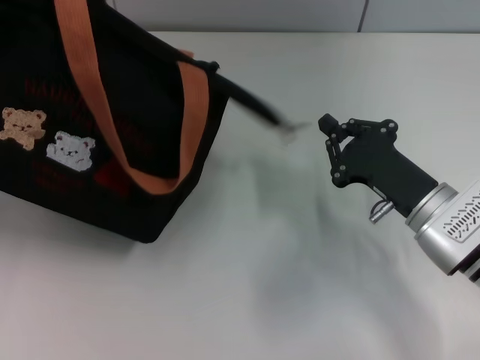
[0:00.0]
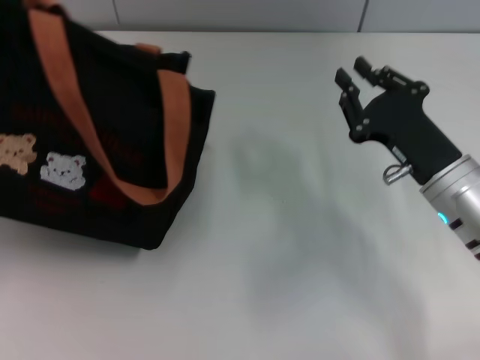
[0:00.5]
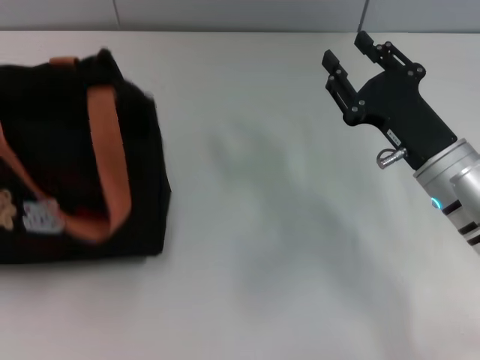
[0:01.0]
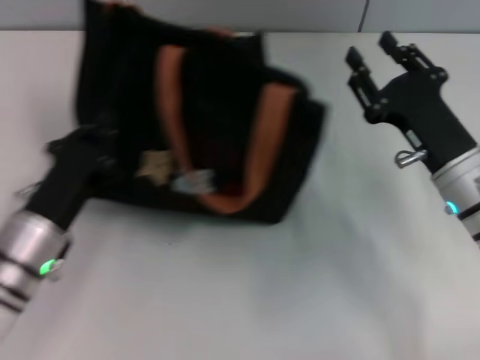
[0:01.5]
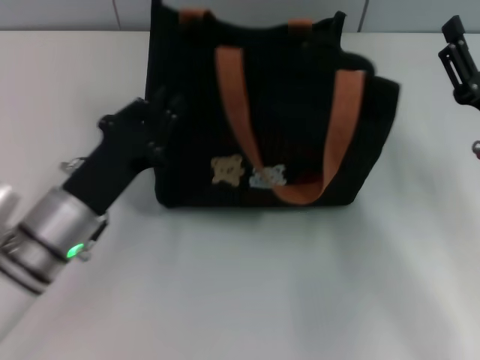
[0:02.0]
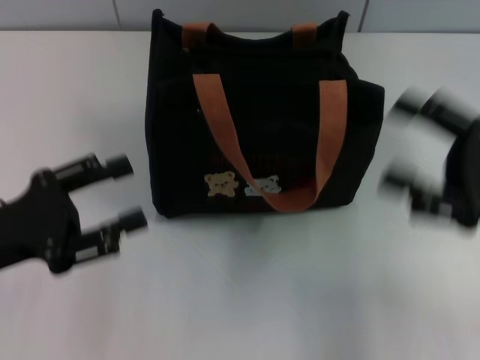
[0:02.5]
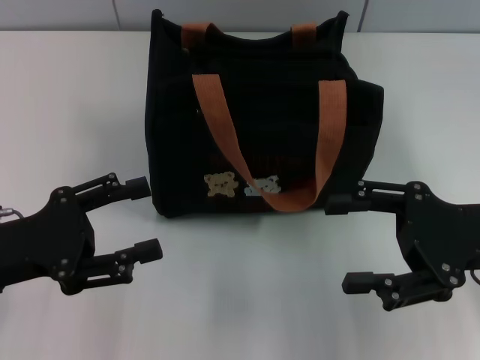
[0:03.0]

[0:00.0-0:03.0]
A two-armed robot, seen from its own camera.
Step, 0:00.0 to 0:01.0: Grab the bag with your left hand.
0:00.0 to 0:01.5: The left gripper travels to the right and downward by some 15 cm, while the right gripper opens its fingers.
0:01.5 to 0:03.0: The right gripper shifts roughly 5 cm upward and to the right, and opens up. The left gripper moves upward and to the left, some 10 cm, and opens up.

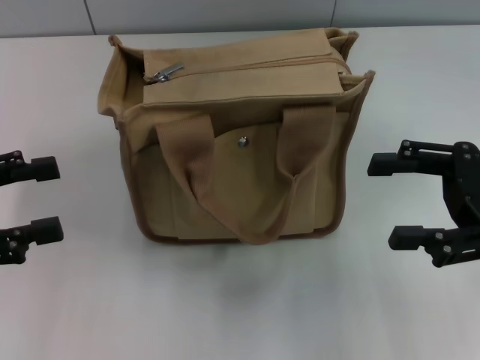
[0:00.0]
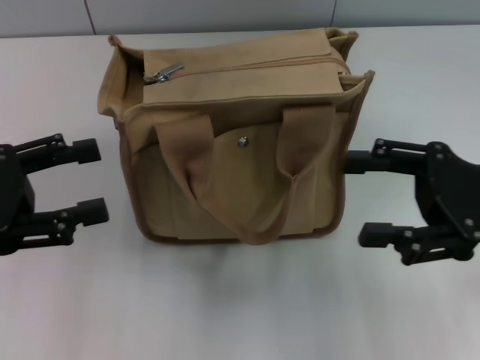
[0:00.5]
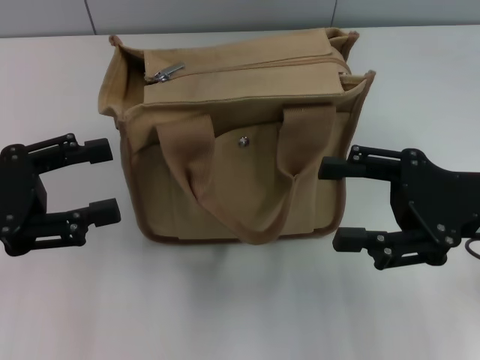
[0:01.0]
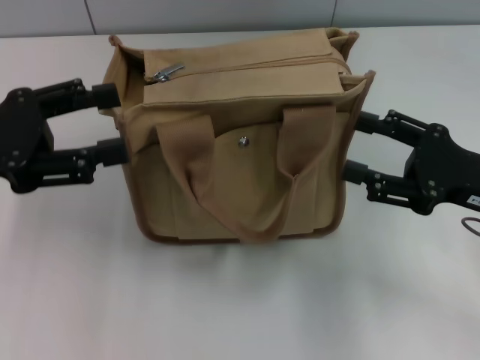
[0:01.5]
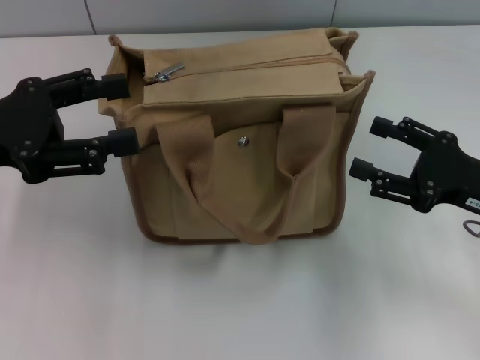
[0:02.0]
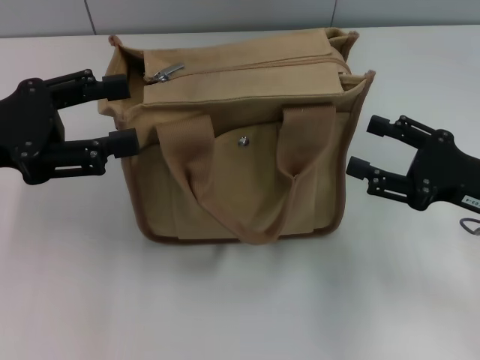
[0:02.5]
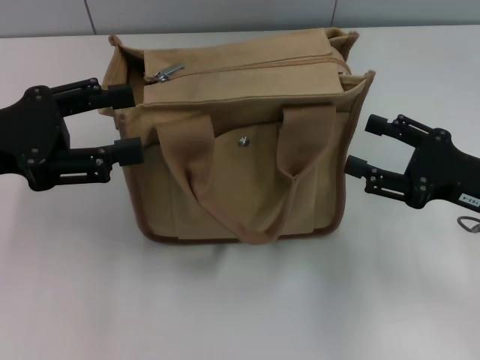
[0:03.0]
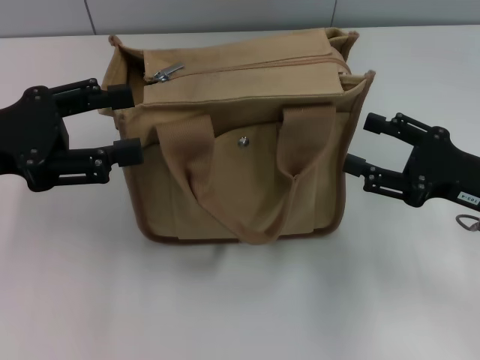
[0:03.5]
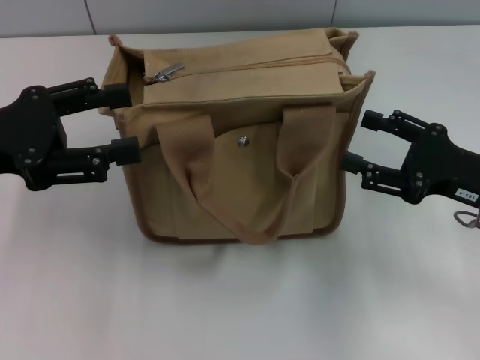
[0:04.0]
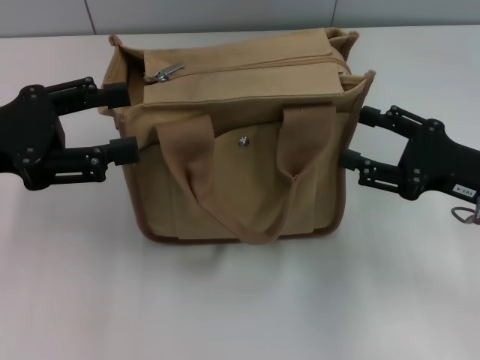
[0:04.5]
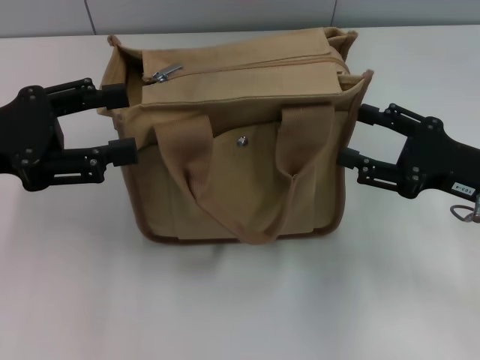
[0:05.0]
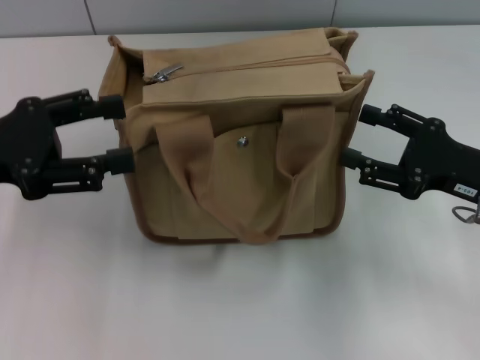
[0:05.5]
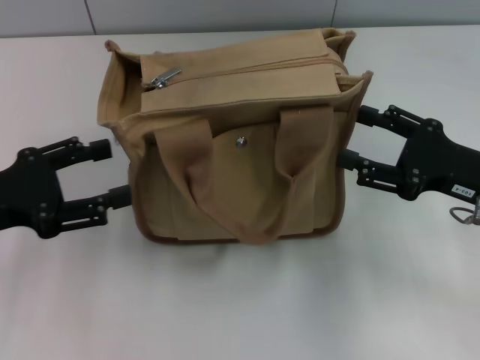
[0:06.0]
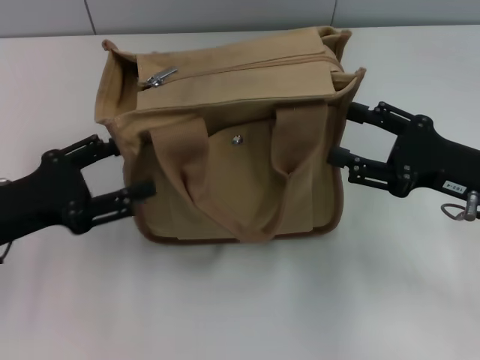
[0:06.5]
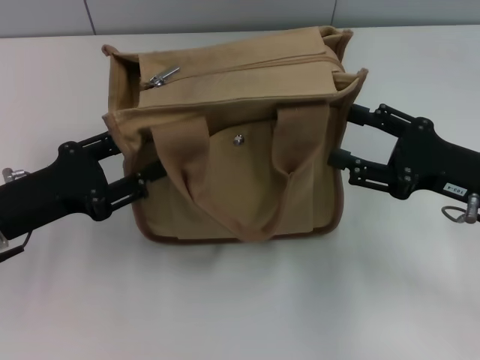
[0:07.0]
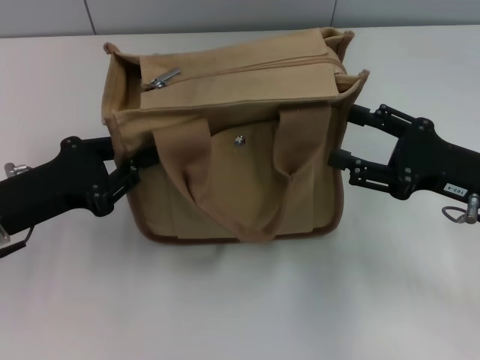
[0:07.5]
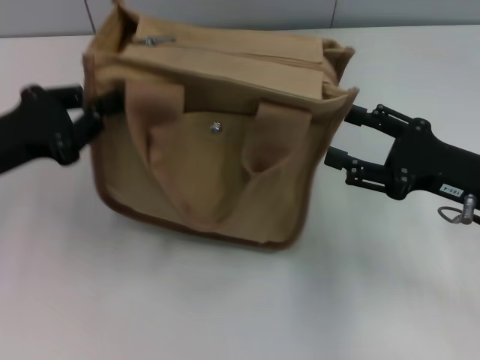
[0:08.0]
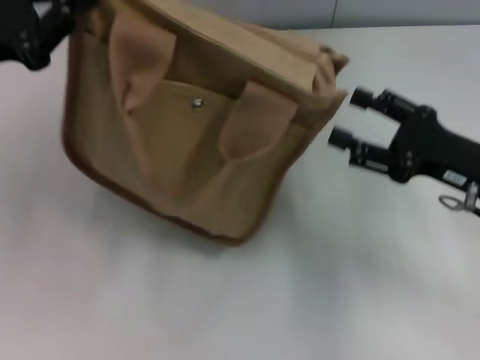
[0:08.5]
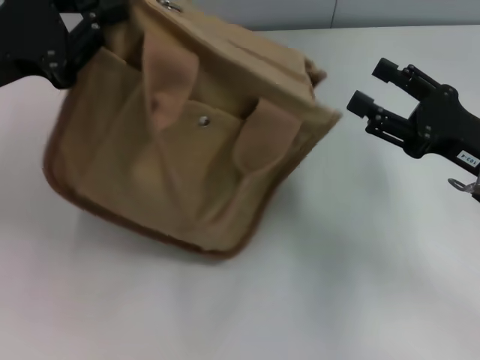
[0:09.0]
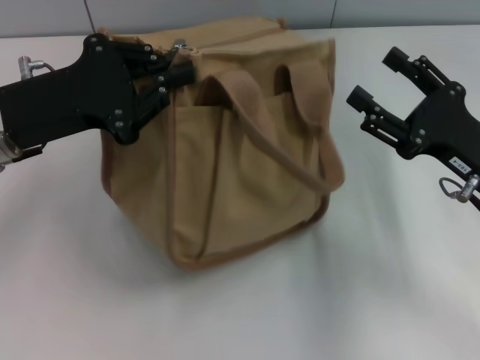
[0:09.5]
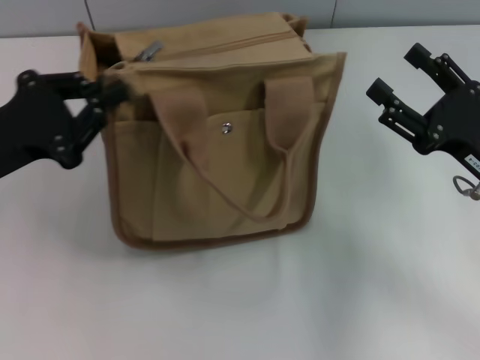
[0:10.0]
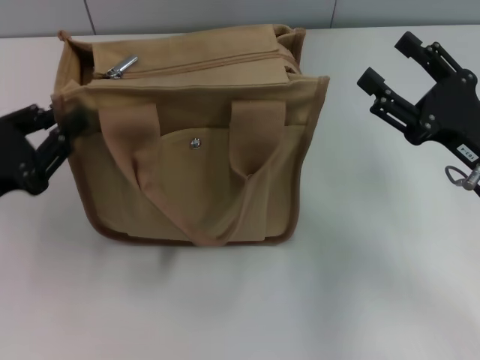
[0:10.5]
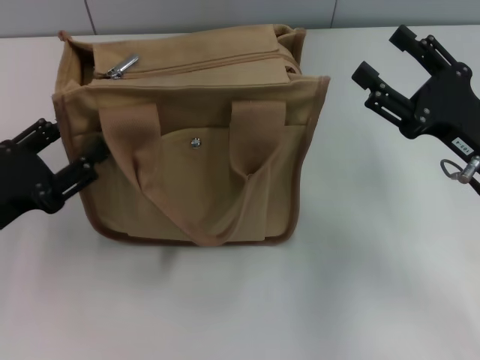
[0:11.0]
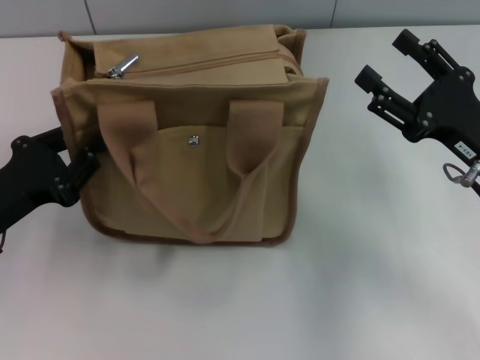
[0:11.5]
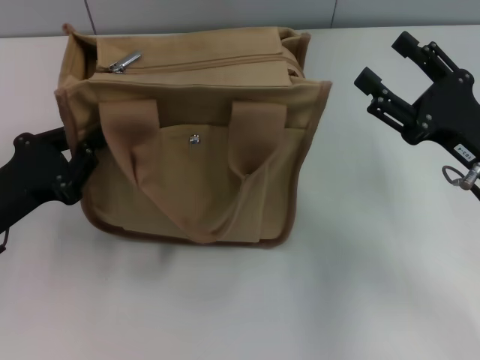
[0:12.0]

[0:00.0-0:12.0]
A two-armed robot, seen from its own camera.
0:00.0 to 0:02.0: The right gripper is displaced downward by roughly 5 cm; the left gripper shifts approximately 10 cm to the right and forward.
0:02.0 to 0:04.0: Neither gripper changes place.
0:04.0 to 0:06.0: The left gripper moves downward, approximately 5 cm.
0:06.0 to 0:08.0: The left gripper closes.
0:10.0 to 0:12.0: The left gripper is displaced downward by approximately 5 cm, and opens and closes again.

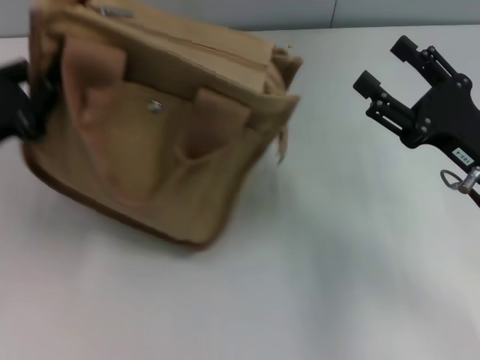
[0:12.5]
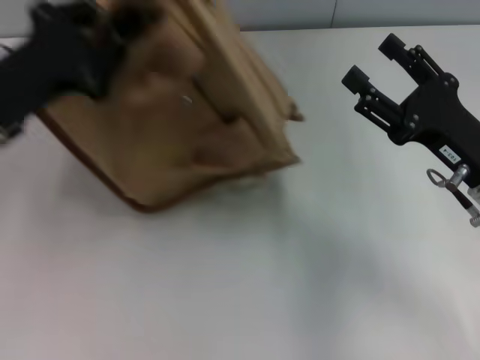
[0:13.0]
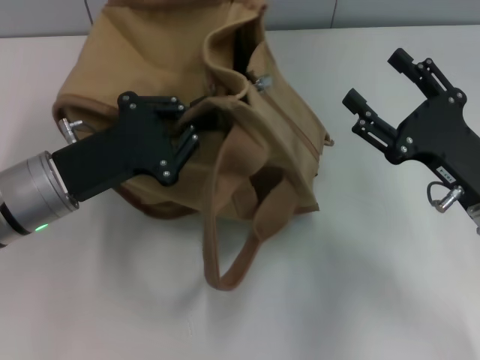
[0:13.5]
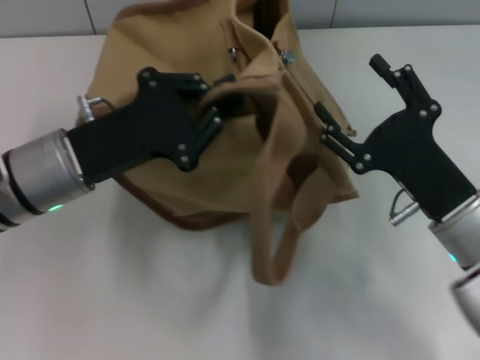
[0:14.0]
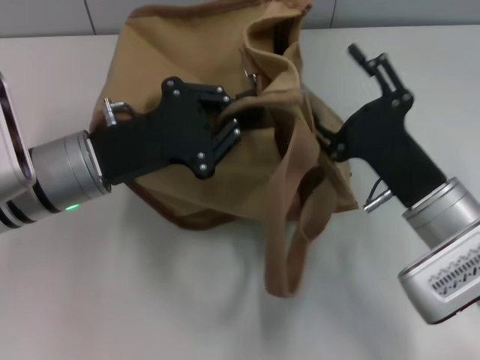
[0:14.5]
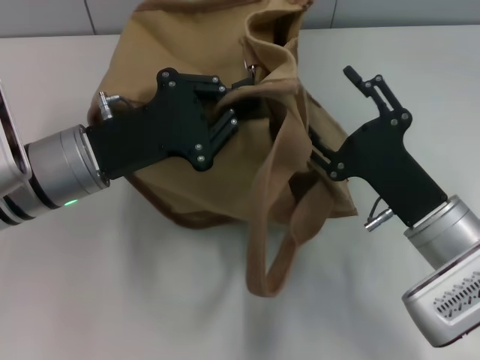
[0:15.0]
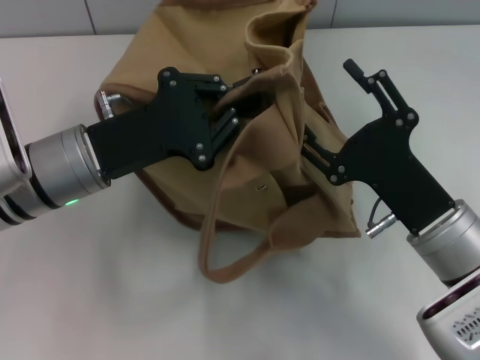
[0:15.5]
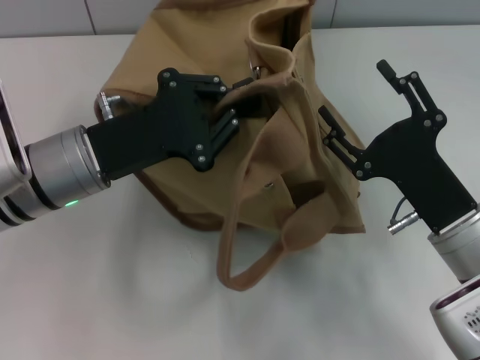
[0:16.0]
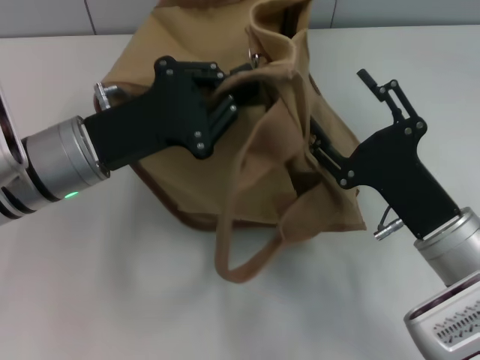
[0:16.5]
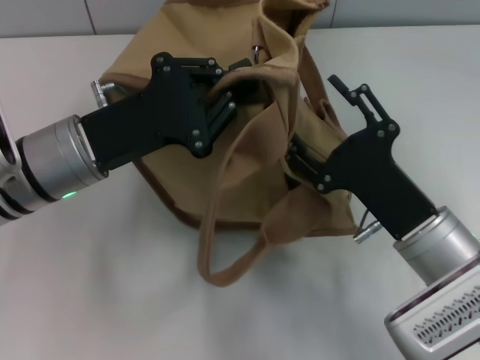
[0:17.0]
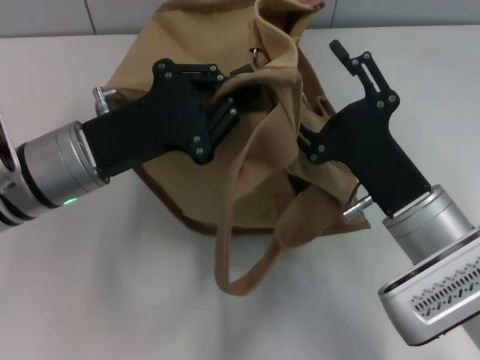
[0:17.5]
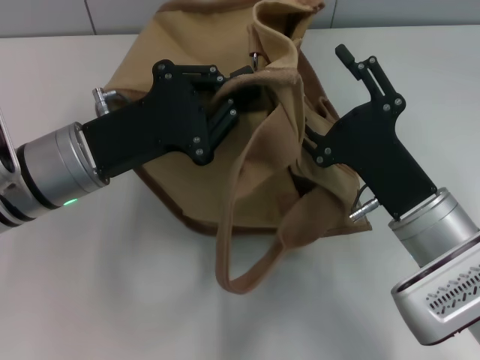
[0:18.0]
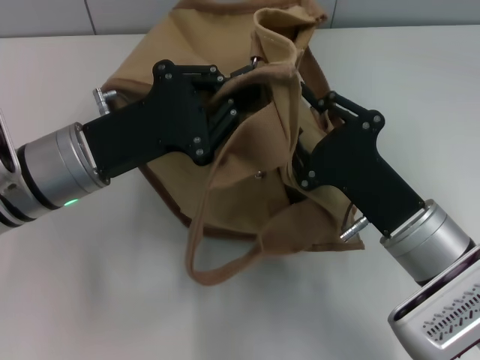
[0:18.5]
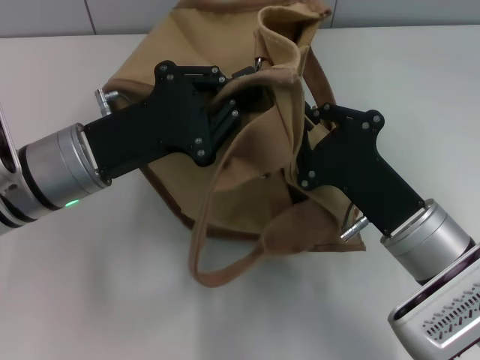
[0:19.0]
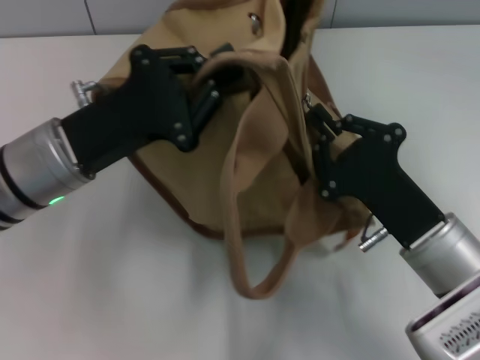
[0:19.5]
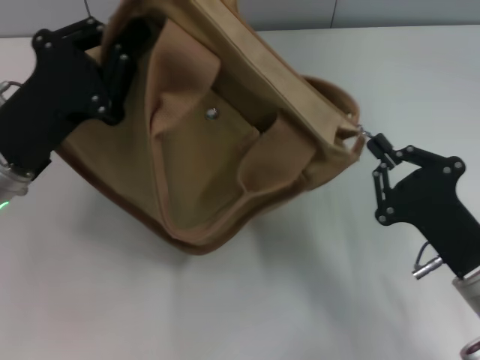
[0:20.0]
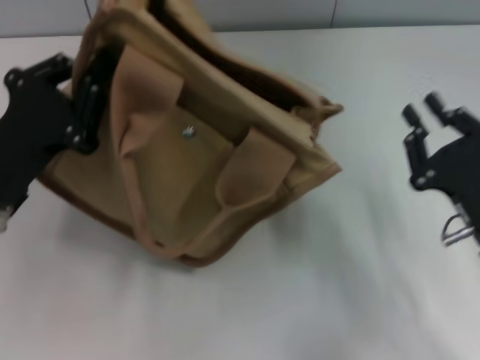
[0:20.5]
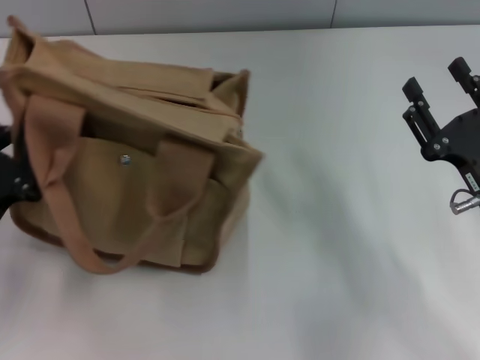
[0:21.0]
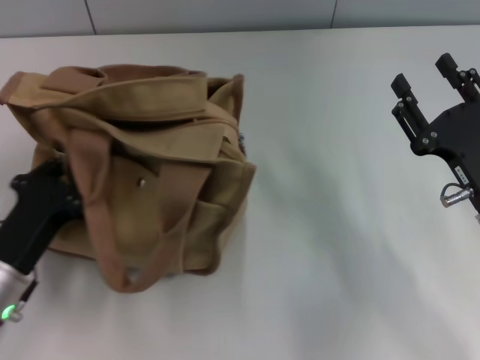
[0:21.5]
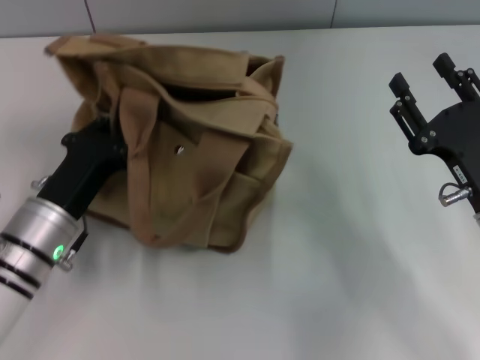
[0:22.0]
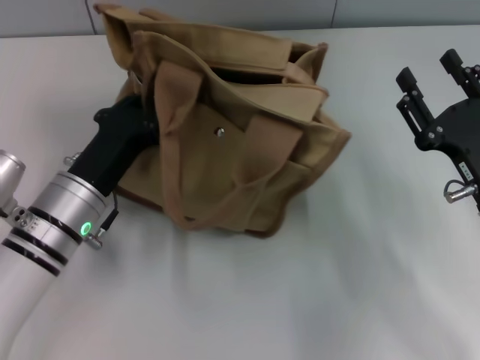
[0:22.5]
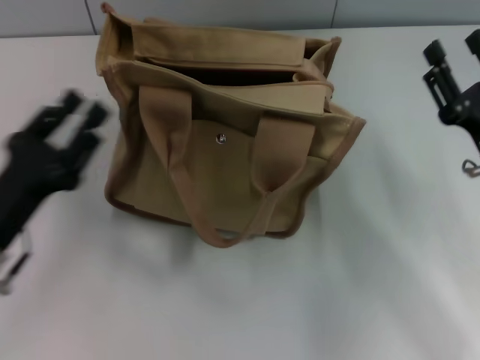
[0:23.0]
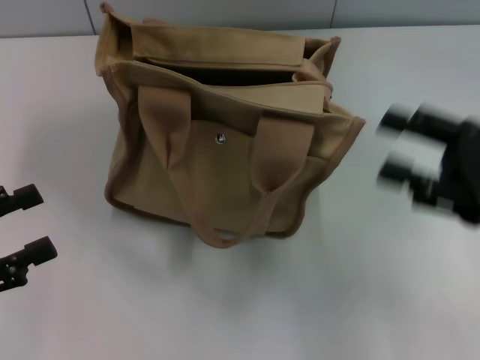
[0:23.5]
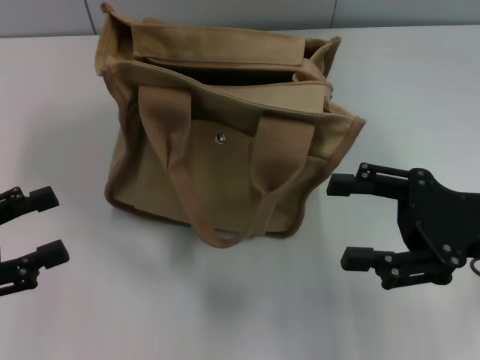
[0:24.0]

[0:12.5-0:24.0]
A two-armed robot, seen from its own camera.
Step, 0:12.5 to 0:20.0: Pull open the zipper with your right hand.
Step, 0:20.5 to 0:22.5: Grab the bag with your left hand.
0:12.5 to 0:14.5: The right gripper travels to the left by approximately 5 cm; the left gripper is displaced to the right by approximately 10 cm.
0:16.5 to 0:18.5: The right gripper closes up.
0:18.5 to 0:20.0: The left gripper travels to the left by approximately 5 cm; the right gripper heads to the right, covering approximately 5 cm, and closes.
0:20.0 to 0:22.0: The right gripper goes about 5 cm forward, and opens its fingers; the left gripper is displaced downward by approximately 10 cm.
0:22.0 to 0:24.0: The left gripper travels to the left, upward and backward by some 15 cm, and opens up, while the right gripper travels upward by approximately 5 cm.
